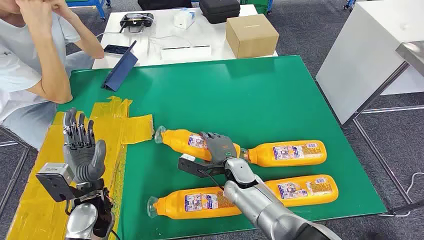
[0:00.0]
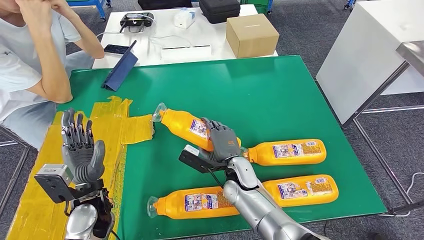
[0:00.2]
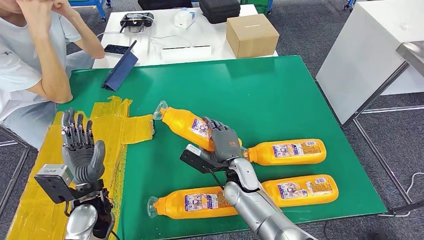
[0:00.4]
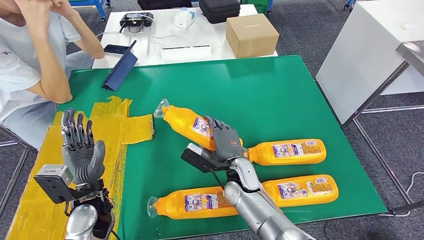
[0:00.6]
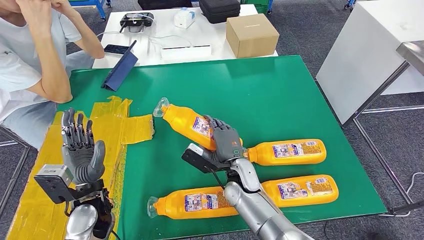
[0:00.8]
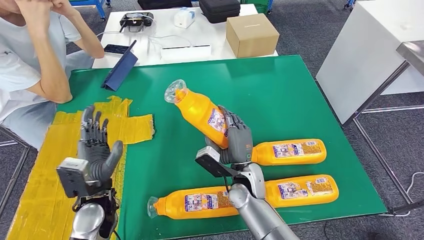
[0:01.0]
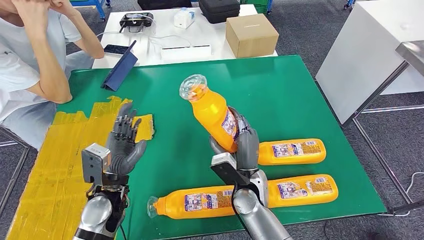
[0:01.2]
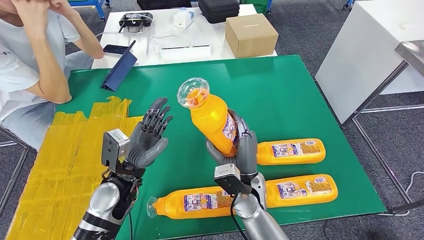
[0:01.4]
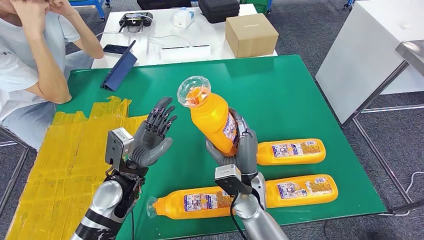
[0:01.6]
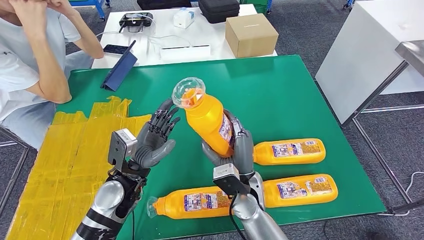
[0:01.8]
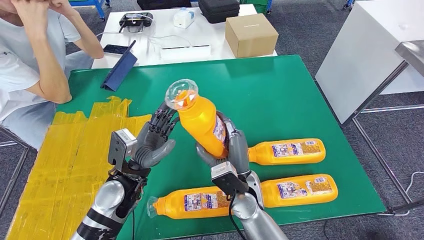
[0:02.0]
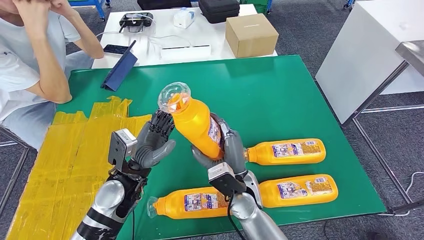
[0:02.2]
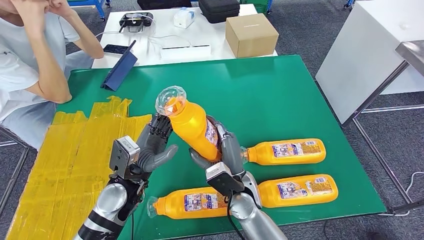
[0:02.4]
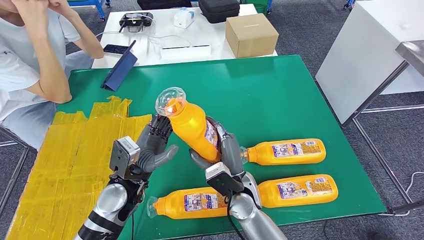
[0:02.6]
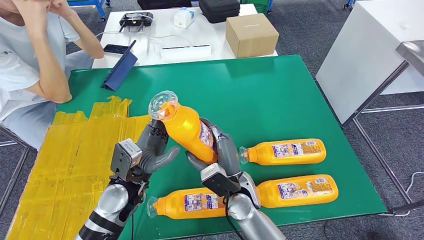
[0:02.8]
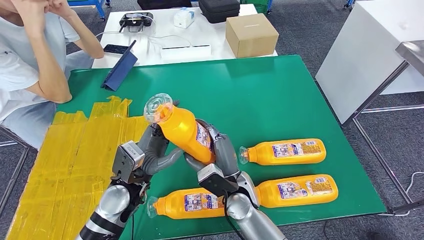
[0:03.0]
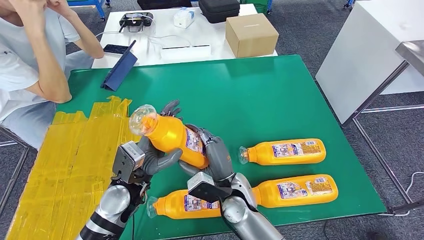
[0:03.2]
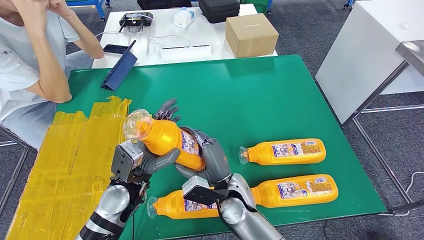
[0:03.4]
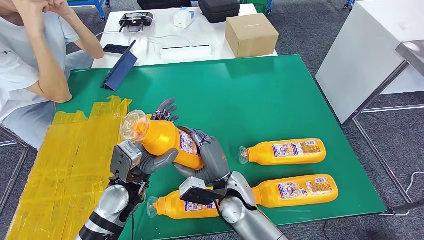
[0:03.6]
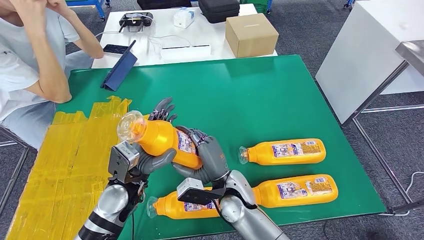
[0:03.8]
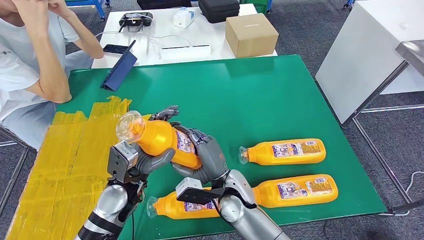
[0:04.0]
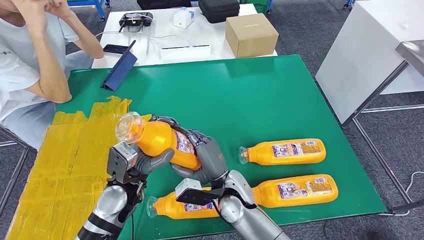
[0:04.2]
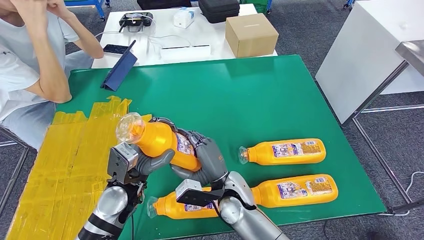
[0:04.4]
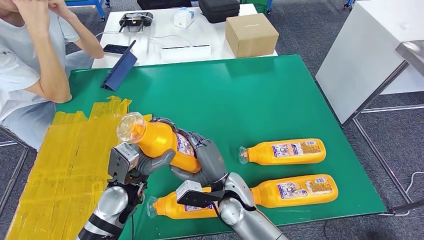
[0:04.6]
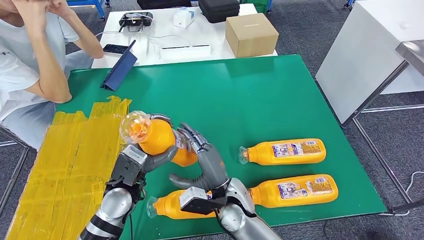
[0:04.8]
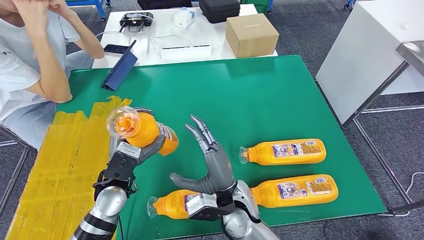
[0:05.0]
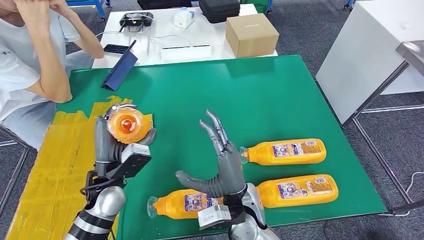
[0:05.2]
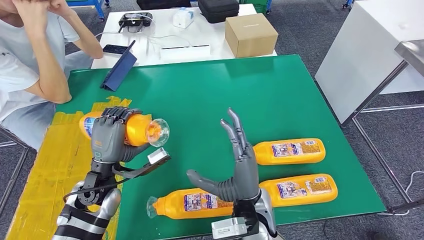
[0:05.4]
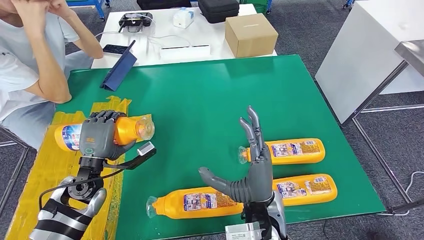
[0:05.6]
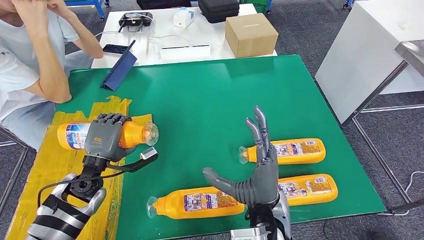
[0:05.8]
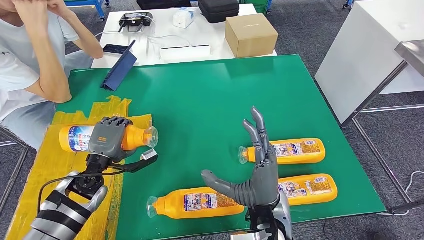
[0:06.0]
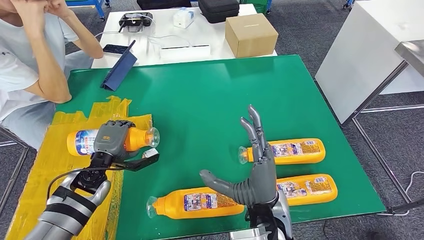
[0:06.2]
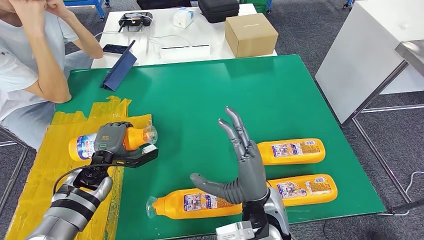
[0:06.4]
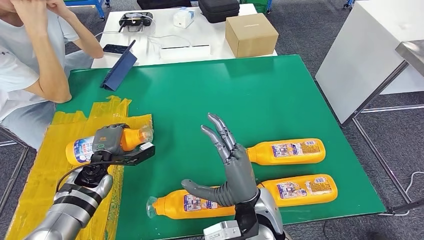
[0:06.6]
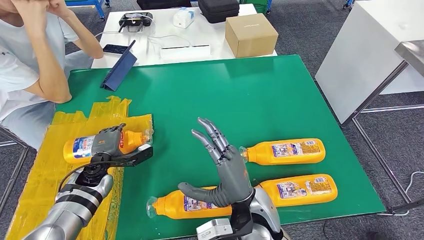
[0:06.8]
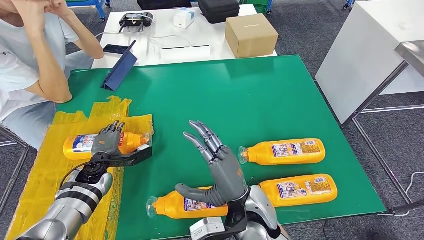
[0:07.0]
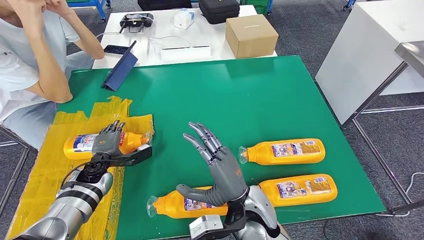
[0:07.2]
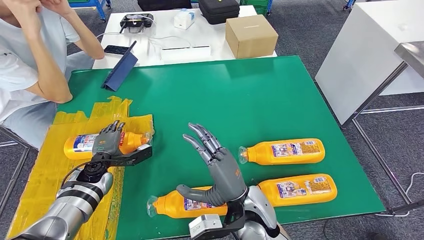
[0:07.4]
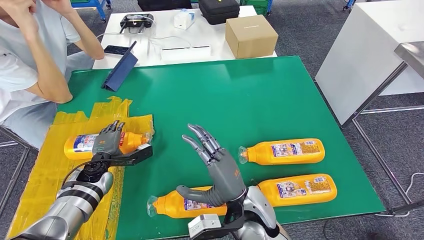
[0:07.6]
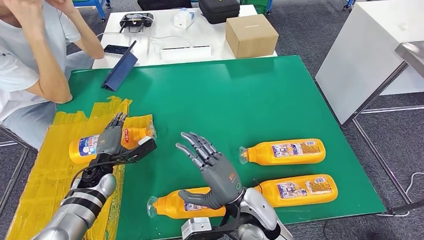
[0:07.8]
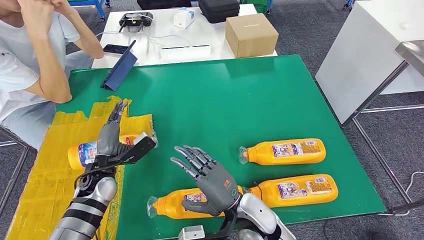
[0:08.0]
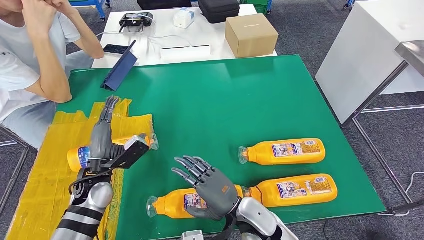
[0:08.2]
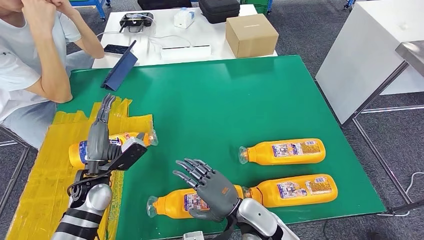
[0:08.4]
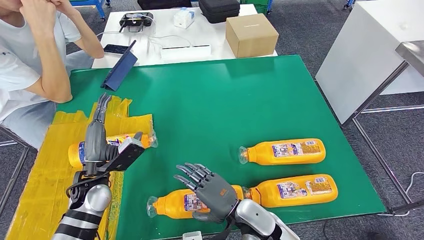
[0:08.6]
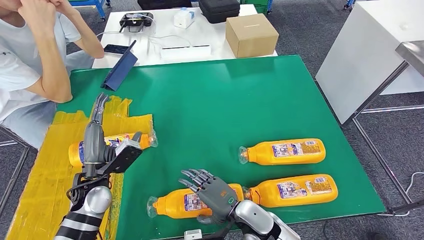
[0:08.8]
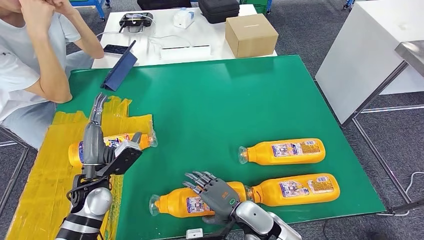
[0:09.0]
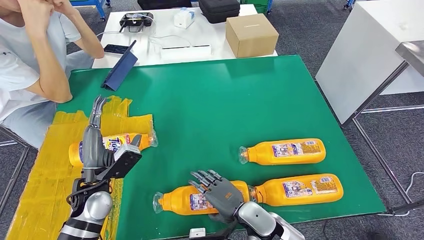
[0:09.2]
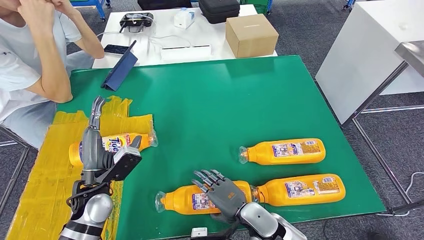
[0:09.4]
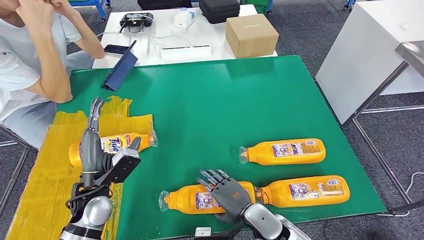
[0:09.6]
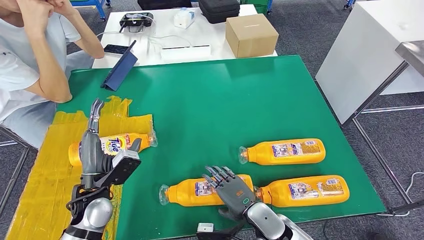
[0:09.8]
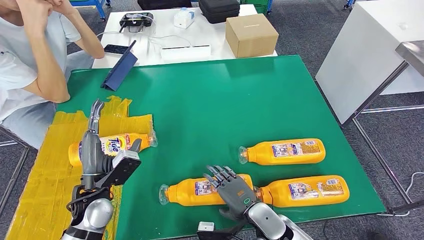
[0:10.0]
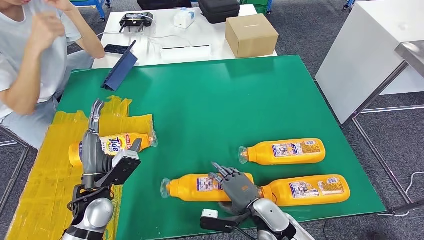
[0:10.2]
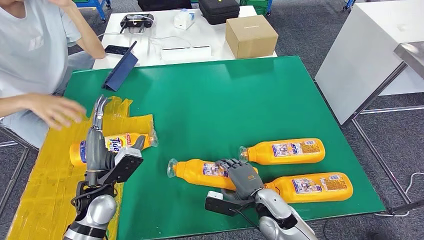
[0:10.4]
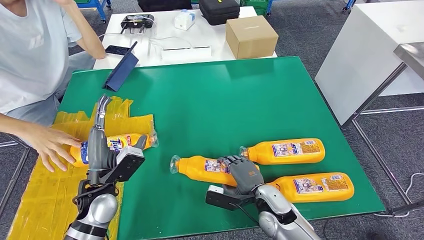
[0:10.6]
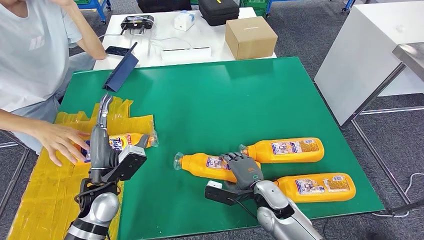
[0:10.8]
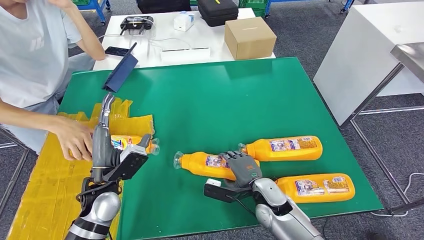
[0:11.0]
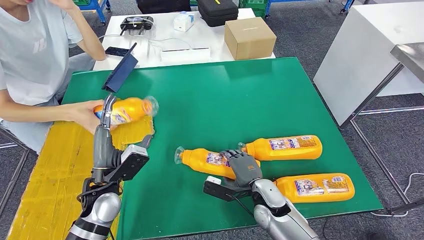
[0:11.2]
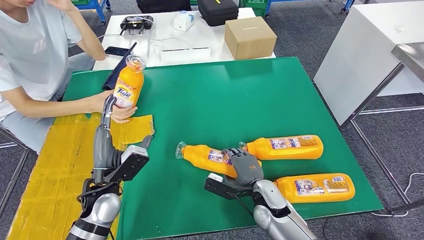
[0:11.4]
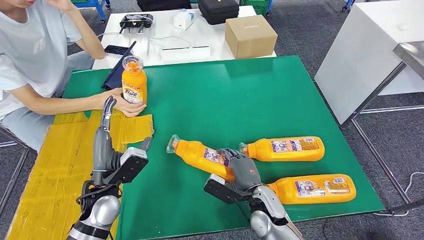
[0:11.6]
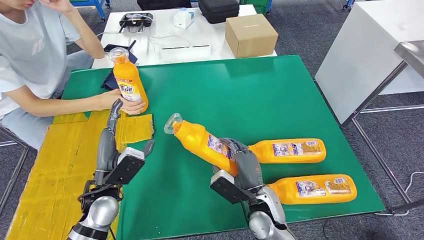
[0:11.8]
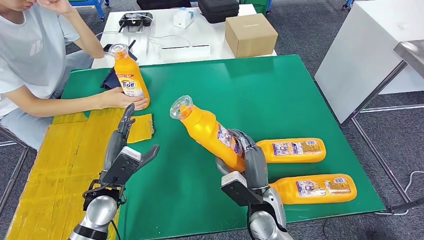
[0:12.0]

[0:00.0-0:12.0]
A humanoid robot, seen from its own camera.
Step, 0:00.0 to 0:02.0: Take the fast-moving consumer goods bottle from the table.
Step, 0:04.0 to 0:06.6: Flip the fast-moving consumer goods bottle to the front side.
0:01.6 to 0:03.0: The hands stay close to where they were, moving slightly.
0:03.0 to 0:04.4: The hands move only a little.
0:04.4 to 0:06.0: The right hand is displaced upward, to the right and backward by some 10 cm. Meanwhile the left hand travels to the left by about 10 cm.
0:06.0 to 0:07.6: The left hand travels downward by approximately 5 cm.
0:07.6 to 0:09.0: The left hand goes some 10 cm backward and upward. Meanwhile the right hand goes roughly 10 cm downward.

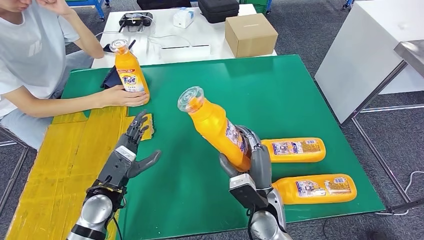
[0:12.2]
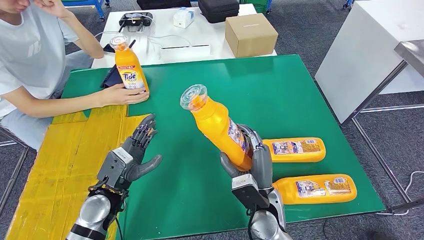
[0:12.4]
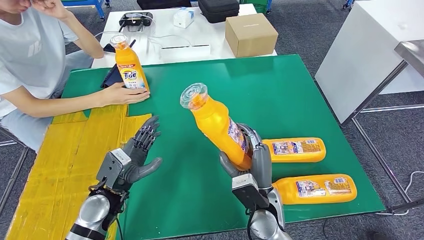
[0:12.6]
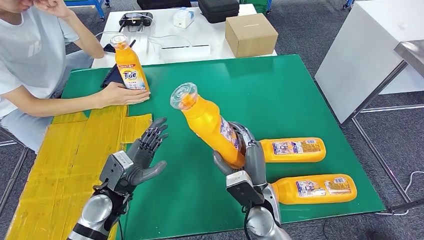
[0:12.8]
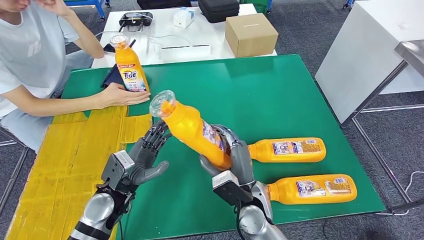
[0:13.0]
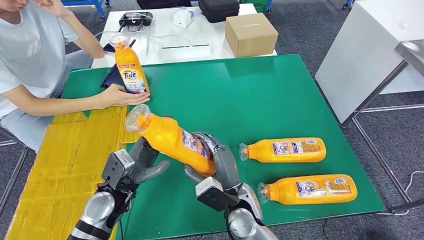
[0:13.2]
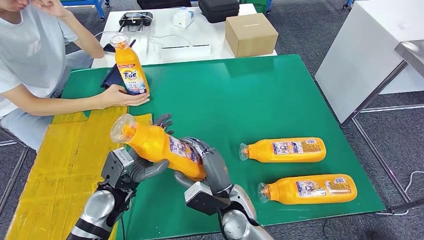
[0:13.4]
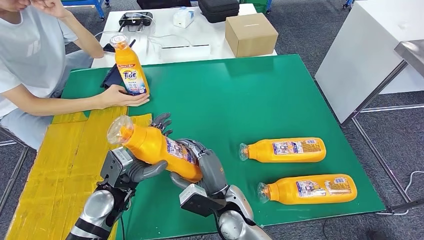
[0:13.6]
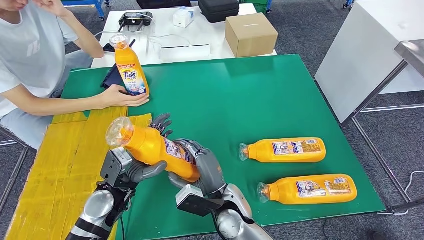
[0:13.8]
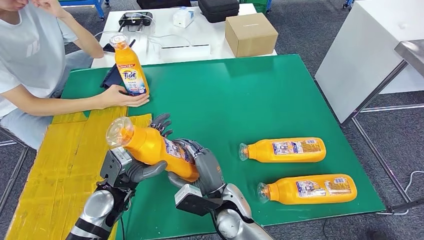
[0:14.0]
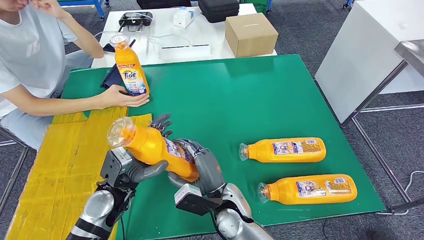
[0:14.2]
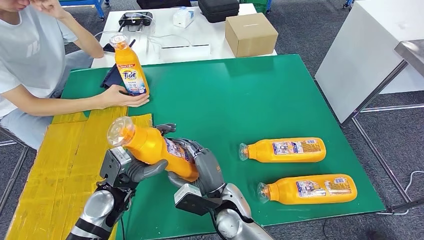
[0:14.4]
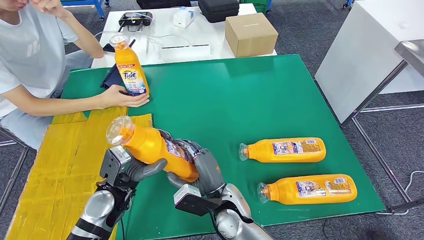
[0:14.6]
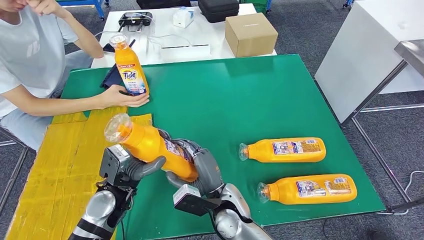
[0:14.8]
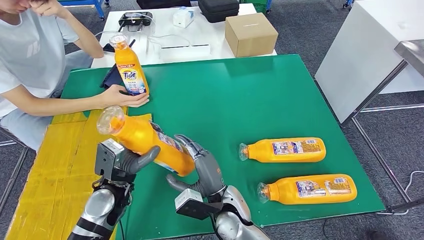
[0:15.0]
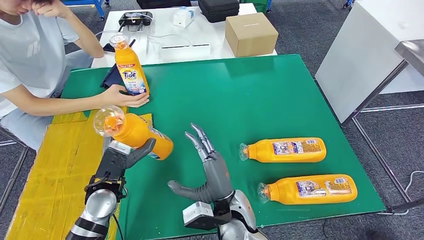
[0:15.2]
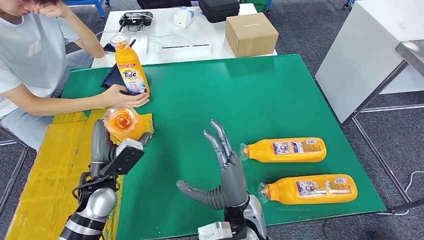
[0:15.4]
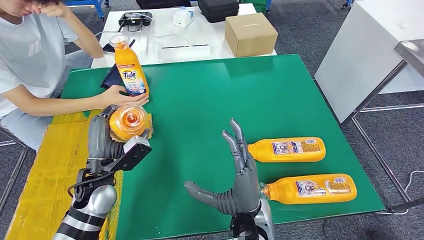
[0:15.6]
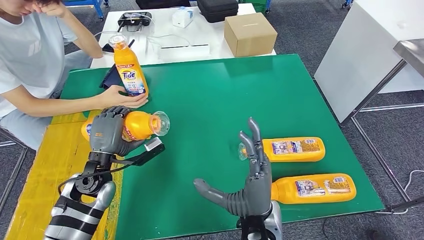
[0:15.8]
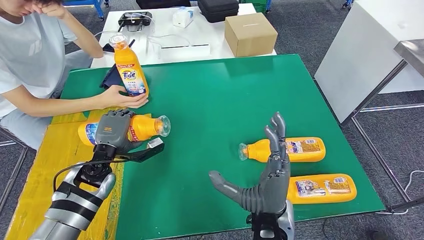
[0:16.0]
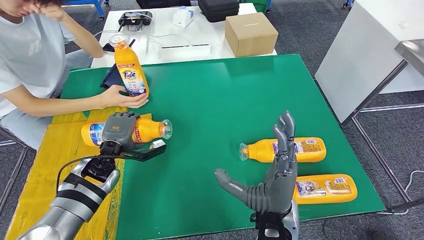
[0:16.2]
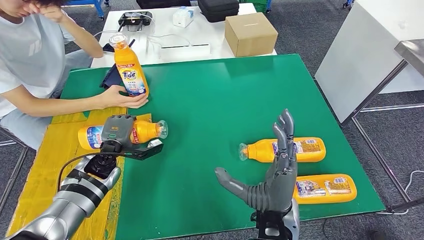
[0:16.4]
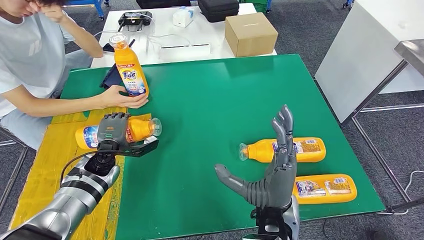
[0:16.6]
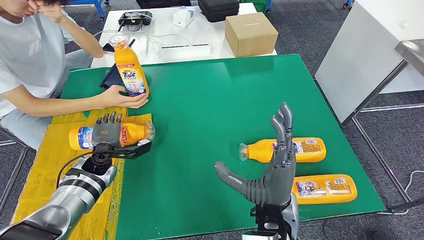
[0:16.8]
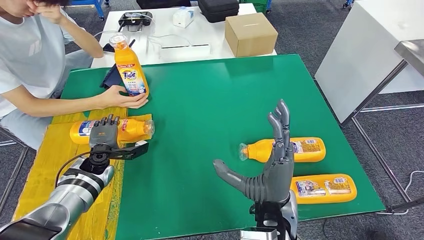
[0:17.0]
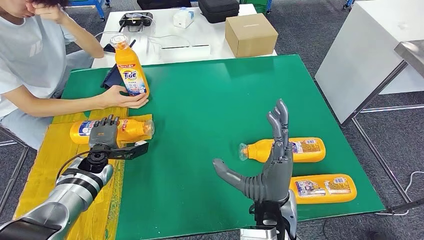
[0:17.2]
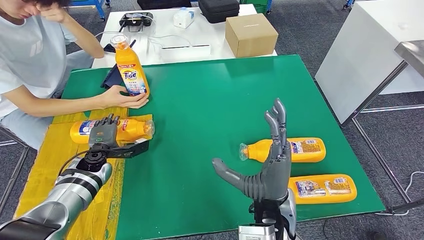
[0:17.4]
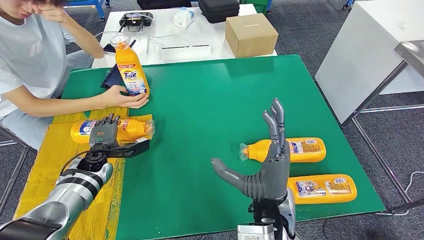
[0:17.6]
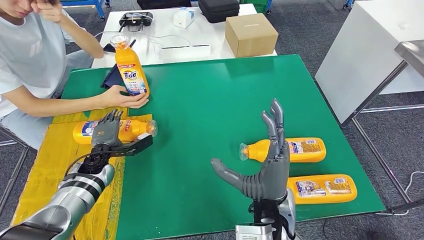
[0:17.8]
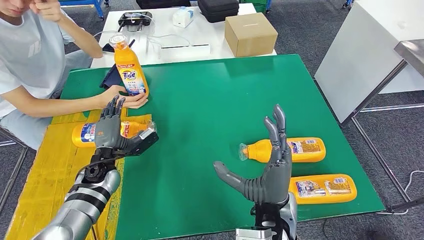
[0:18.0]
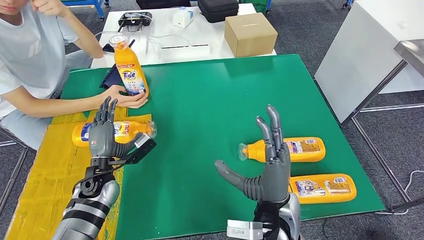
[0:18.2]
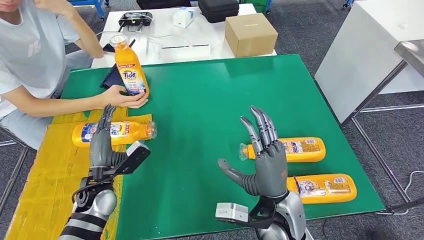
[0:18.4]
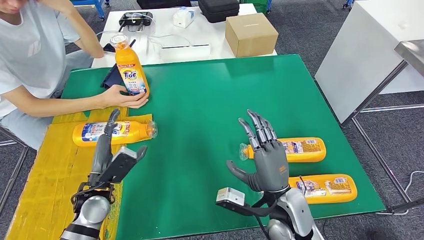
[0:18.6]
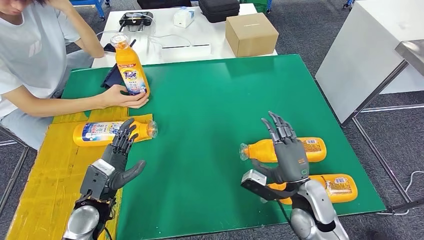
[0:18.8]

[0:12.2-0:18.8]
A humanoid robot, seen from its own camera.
Step, 0:14.0 to 0:16.6: Flip the fast-moving consumer goods bottle to the front side.
0:12.2 to 0:13.8: The right hand shifts some 10 cm to the left.
0:13.8 to 0:15.4: The right hand moves approximately 5 cm.
0:15.4 to 0:17.2: The right hand is displaced upward and to the right by roughly 10 cm; the left hand moves forward, to the left and downward, roughly 15 cm.
0:17.2 to 0:18.8: The left hand travels backward by about 15 cm; the right hand heads to the right and downward, covering approximately 15 cm.
